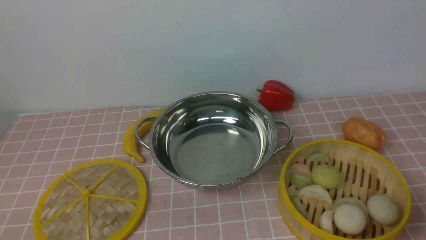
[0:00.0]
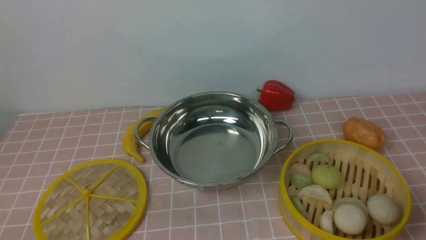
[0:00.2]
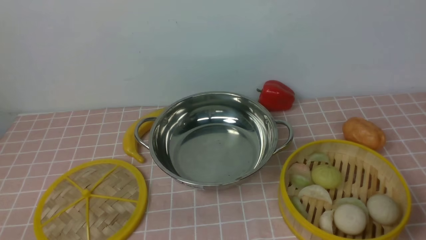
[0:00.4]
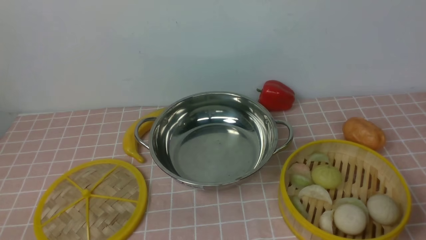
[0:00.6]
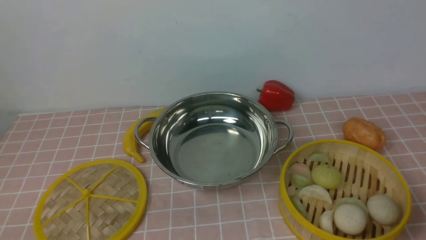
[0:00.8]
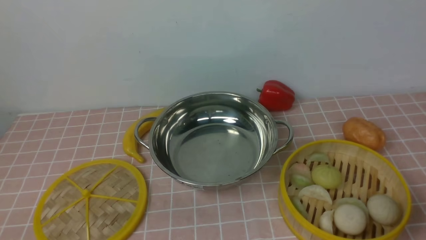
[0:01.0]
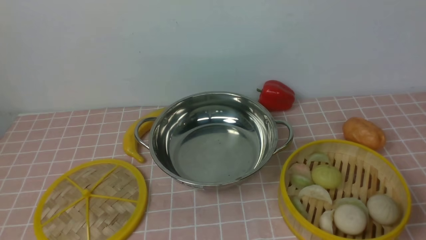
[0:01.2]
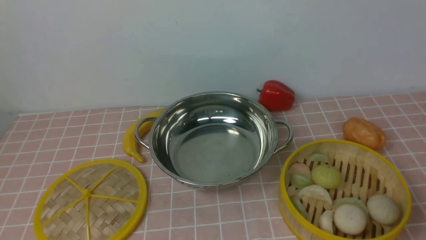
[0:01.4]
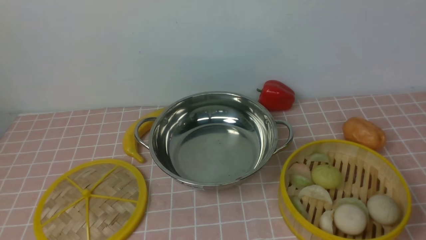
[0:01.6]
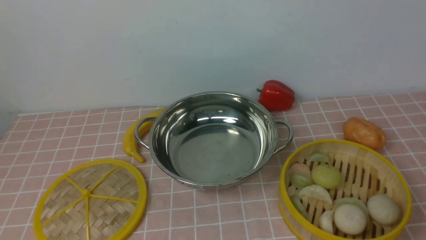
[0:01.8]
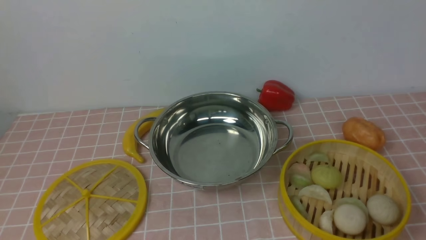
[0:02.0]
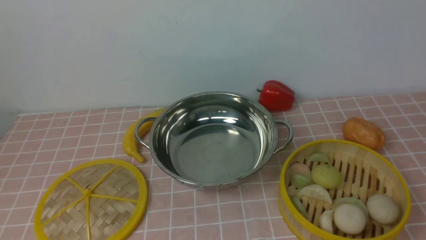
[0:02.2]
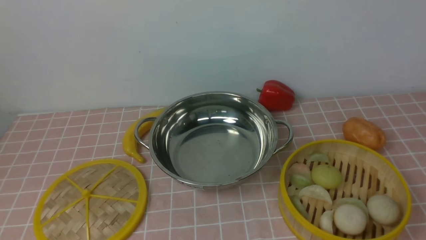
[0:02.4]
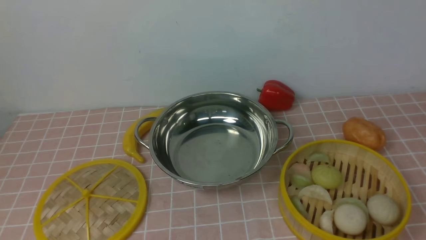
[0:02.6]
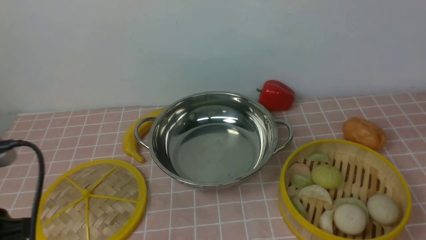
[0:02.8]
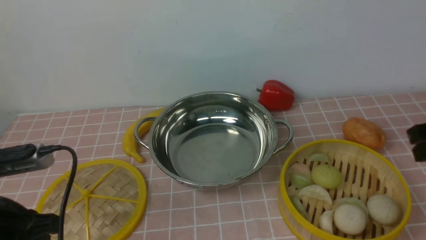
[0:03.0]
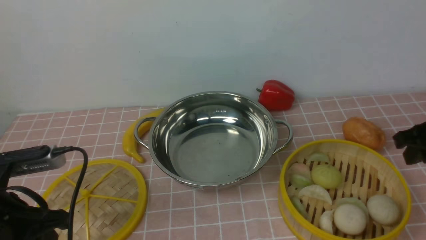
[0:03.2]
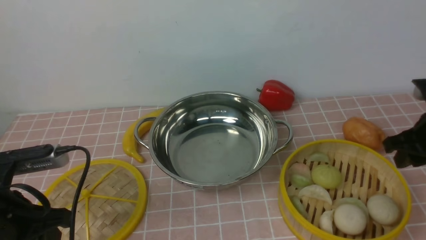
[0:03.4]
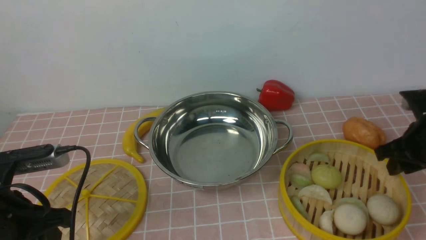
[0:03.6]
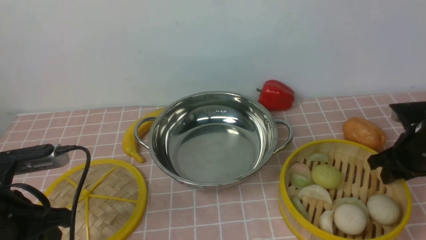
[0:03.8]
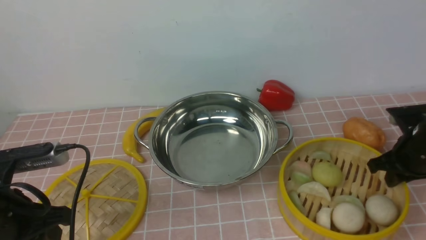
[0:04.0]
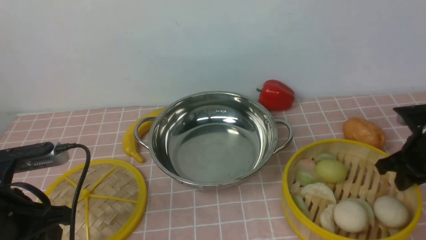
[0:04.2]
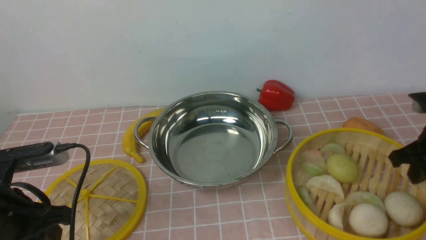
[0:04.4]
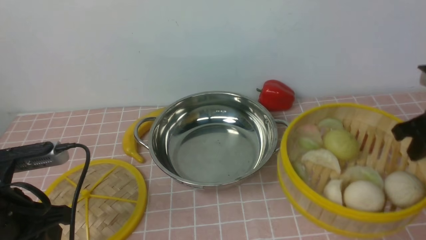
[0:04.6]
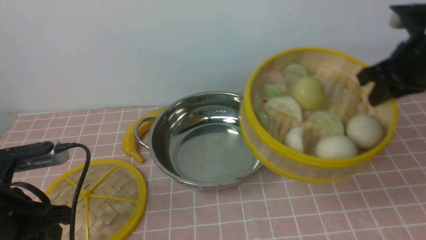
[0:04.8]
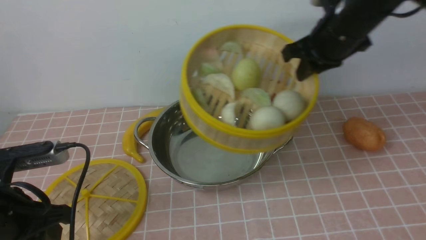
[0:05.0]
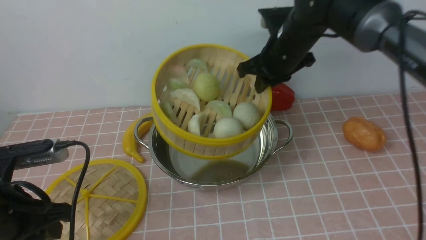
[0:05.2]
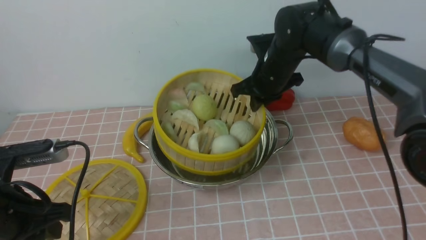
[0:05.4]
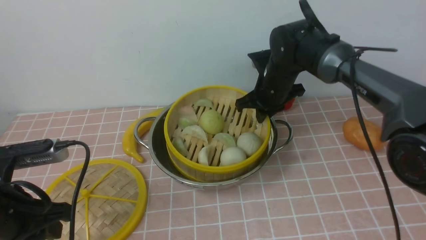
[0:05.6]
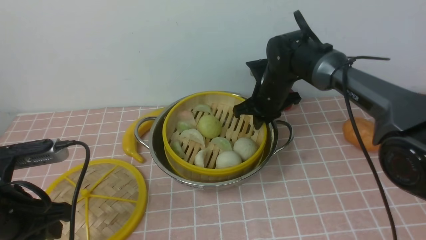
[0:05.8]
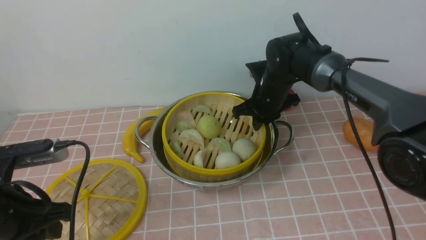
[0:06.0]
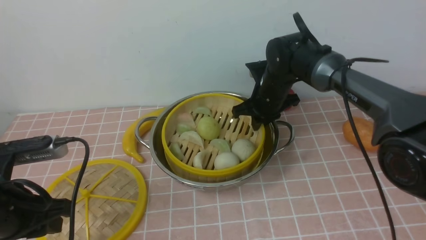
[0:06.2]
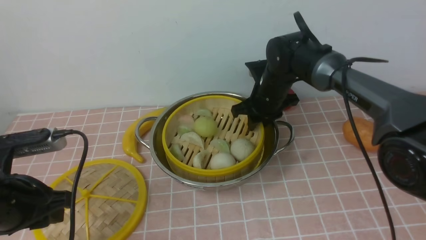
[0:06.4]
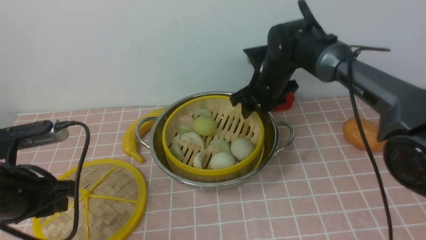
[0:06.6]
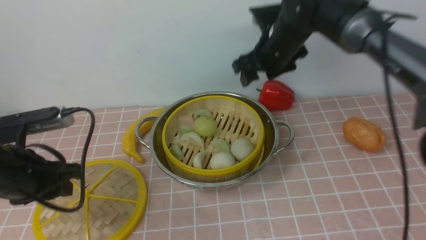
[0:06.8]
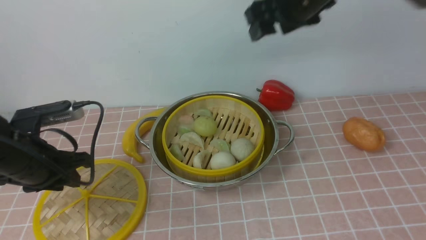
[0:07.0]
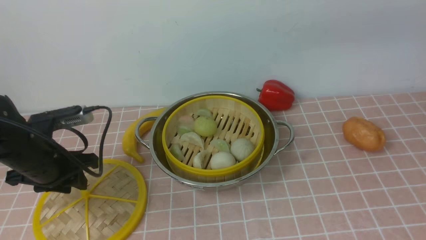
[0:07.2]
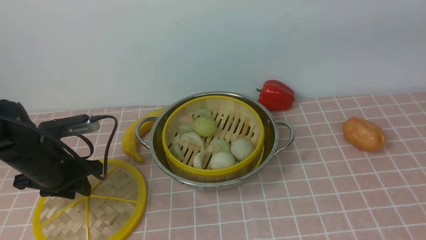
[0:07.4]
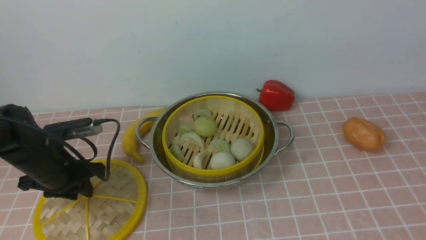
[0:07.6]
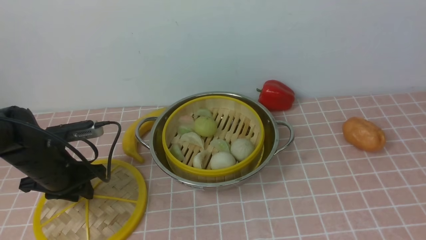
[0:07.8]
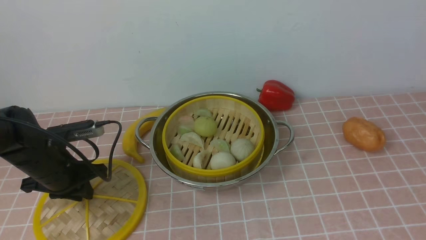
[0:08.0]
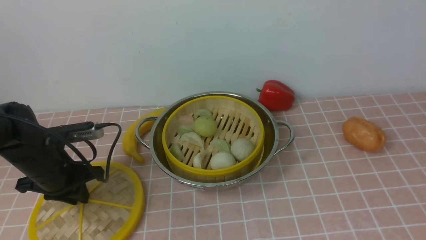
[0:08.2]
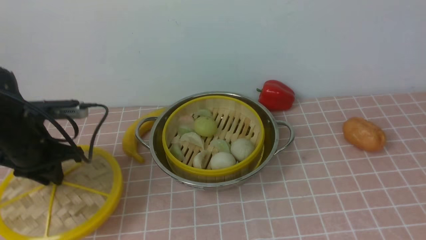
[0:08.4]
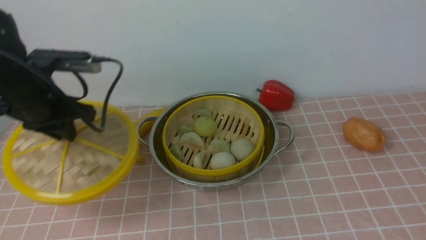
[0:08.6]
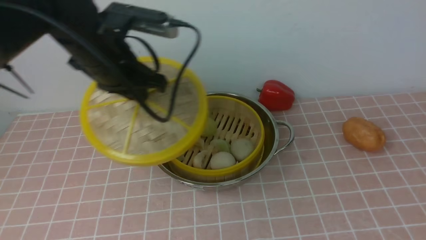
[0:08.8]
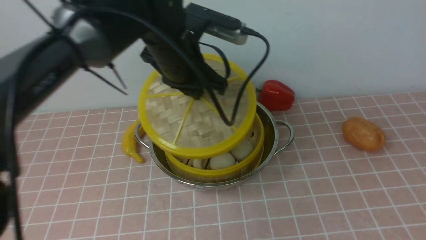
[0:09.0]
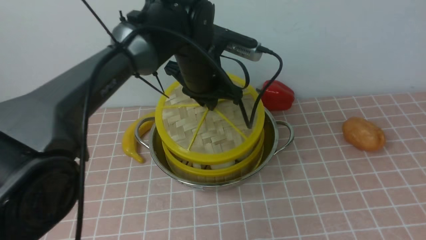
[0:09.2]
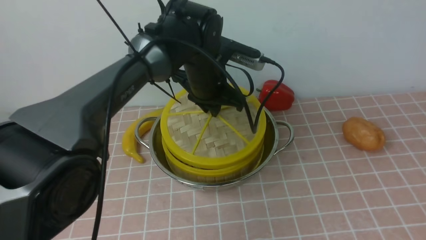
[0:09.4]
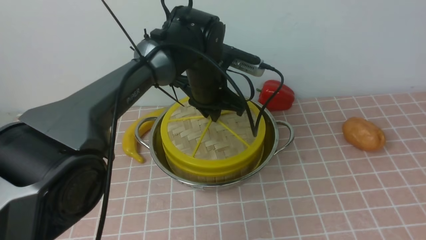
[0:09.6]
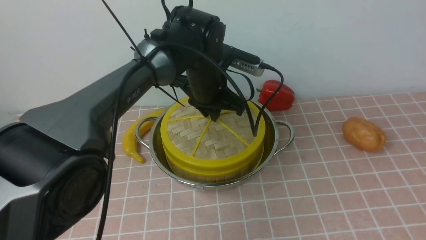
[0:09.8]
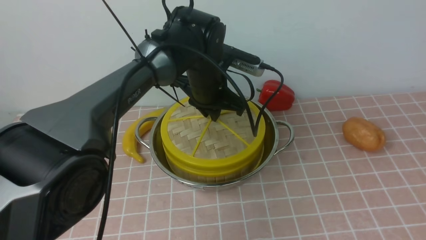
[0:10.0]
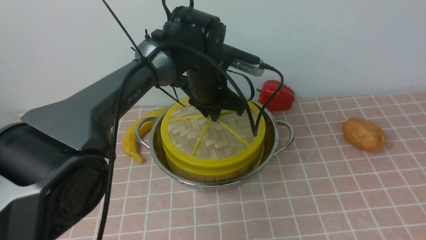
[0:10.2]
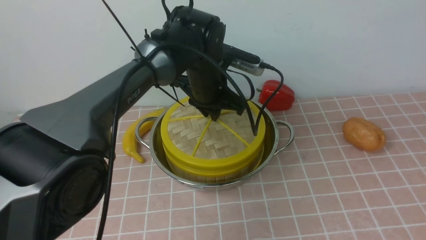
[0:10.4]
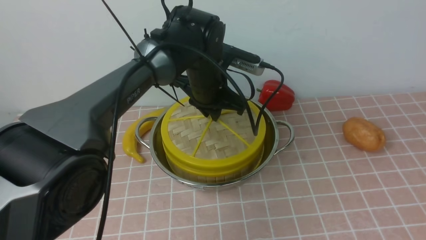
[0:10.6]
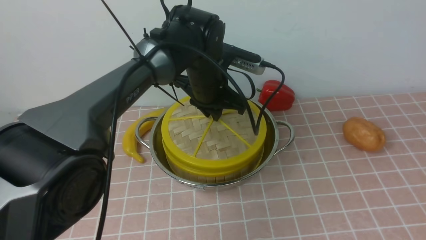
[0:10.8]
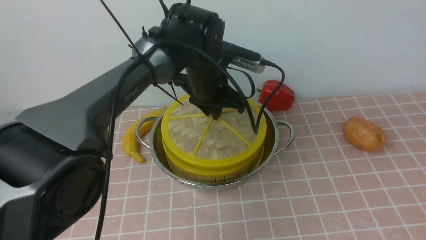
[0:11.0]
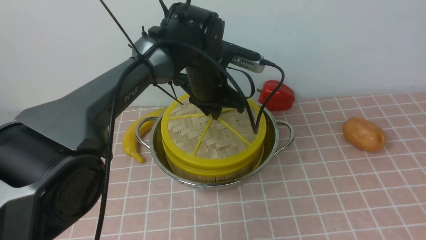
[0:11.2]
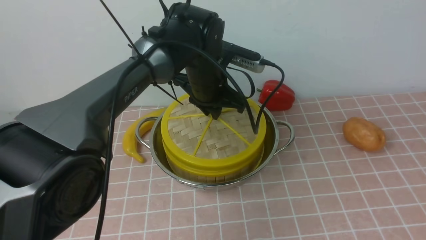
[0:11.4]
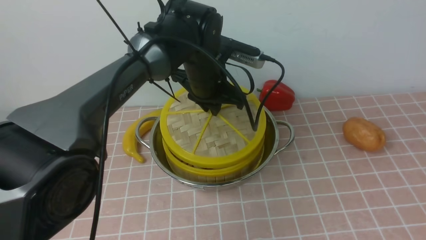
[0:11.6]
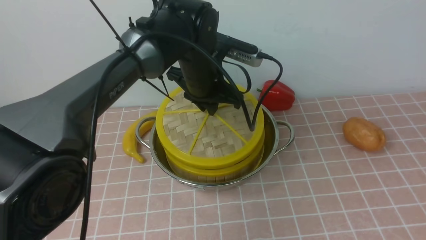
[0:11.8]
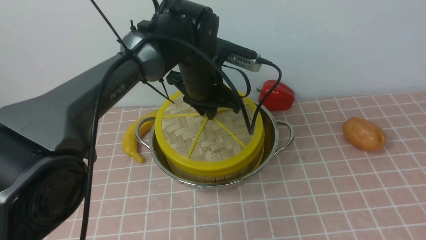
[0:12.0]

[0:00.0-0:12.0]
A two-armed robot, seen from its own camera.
Task of the whole recording: place the steamer in the pot on the pink tablecloth, and put the lid on the steamer.
Step, 0:00.0 to 0:04.4: use the right arm to lift the steamer closest to it.
Step, 0:04.6 to 0:06.4: use the right arm to put the steamer into the iron steamer pot in the middle.
Step, 0:06.8 to 0:08.2: use the left arm to lift the lid of the steamer.
0:01.6 to 0:03.0: The left gripper heads forward, covering approximately 15 cm.
0:03.0 to 0:04.4: The right gripper shifts approximately 5 cm downward.
0:04.4 to 0:06.0: The right gripper moves to the left and forward, about 25 cm.
0:06.0 to 0:07.6: The right gripper travels upward, backward and to the right by approximately 50 cm, and opens up, while the left gripper shifts some 15 cm forward and downward.
0:07.6 to 0:09.0: The left gripper shifts about 25 cm to the right and upward; the right gripper heads backward, to the right and downward, covering roughly 20 cm.
0:09.0 to 0:10.4: The left gripper goes approximately 5 cm downward.
0:10.4 to 0:12.0: The grippers move only a little.

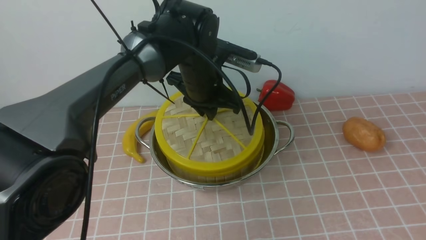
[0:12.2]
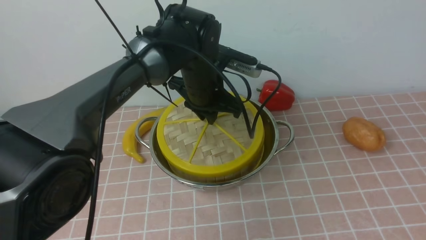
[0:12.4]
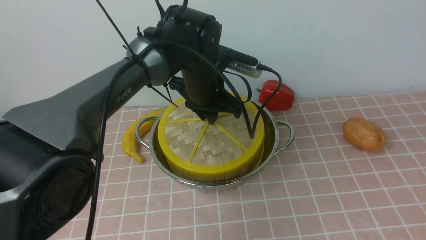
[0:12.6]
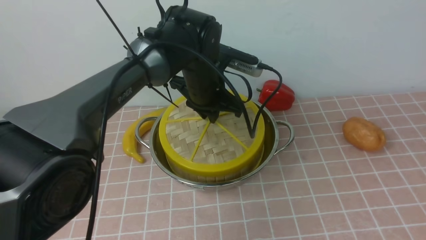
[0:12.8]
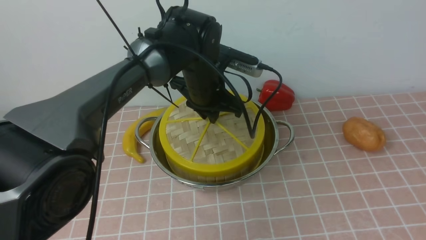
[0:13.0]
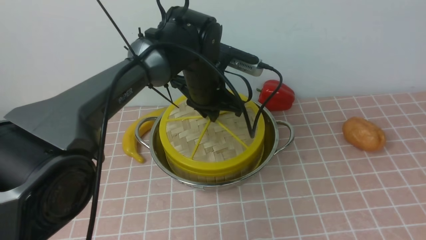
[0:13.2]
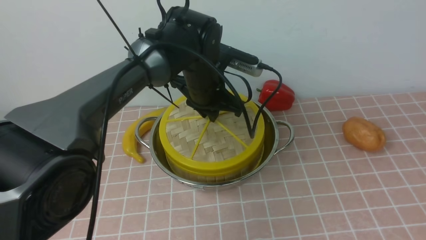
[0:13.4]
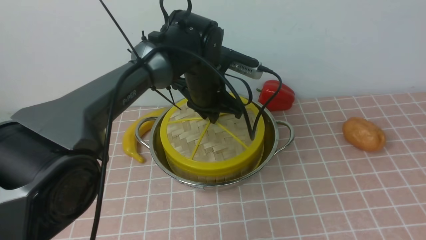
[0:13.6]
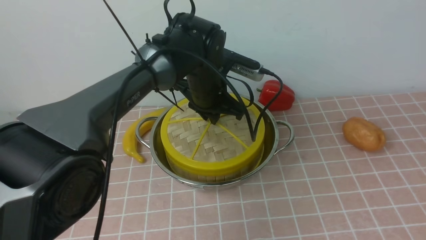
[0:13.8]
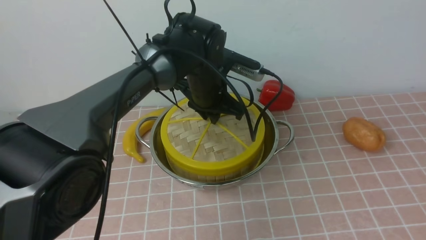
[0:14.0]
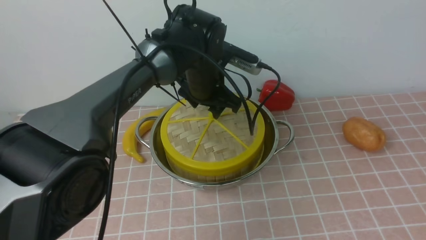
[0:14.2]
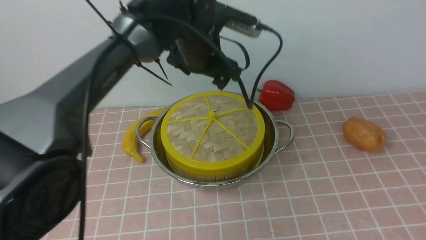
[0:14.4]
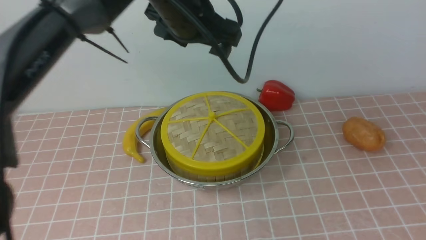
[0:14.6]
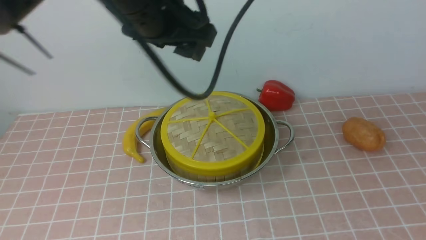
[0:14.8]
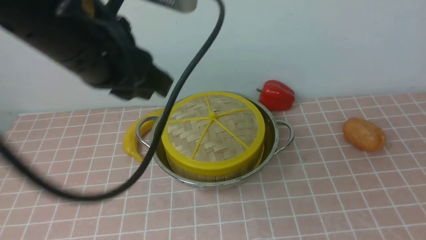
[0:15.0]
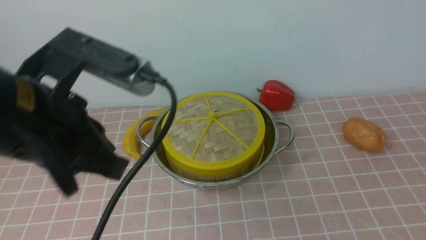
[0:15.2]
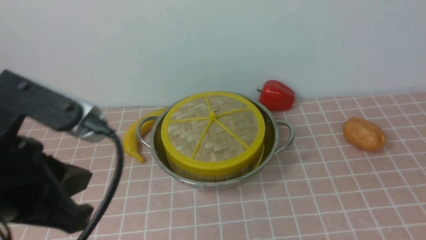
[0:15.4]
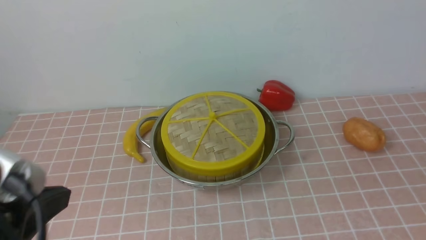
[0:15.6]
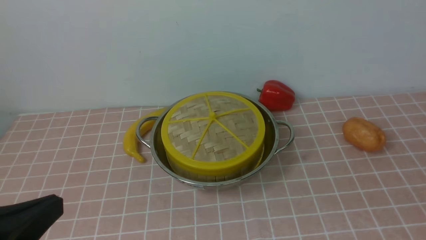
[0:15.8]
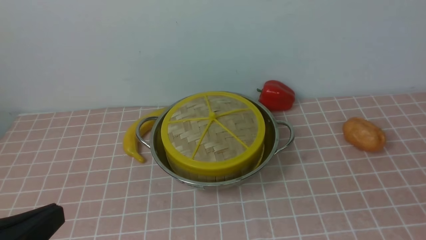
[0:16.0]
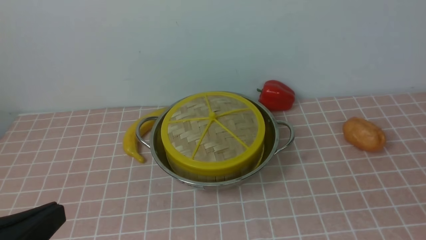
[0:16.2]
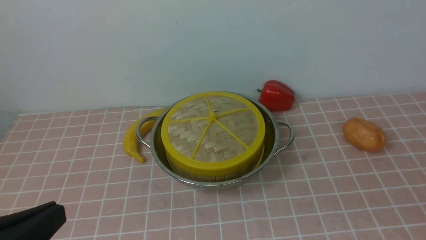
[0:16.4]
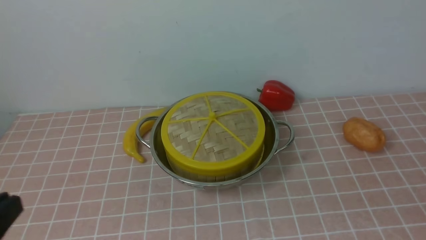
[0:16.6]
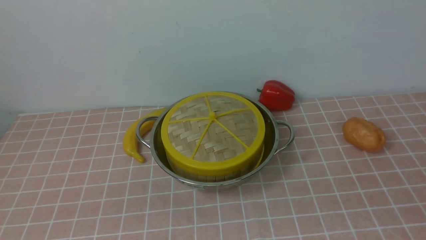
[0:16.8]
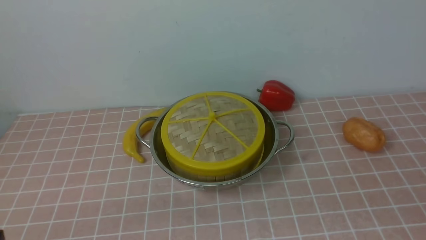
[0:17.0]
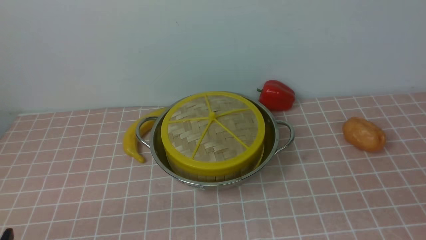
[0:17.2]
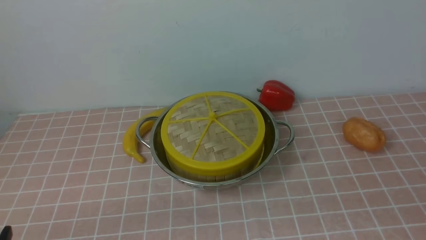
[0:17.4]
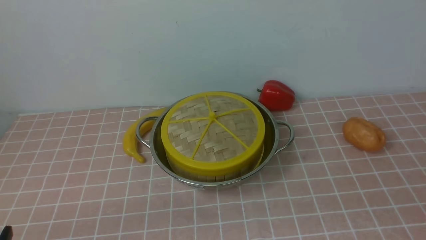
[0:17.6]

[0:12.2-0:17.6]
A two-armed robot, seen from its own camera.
Task of the whole recording: place the steamer in the pot on the pink tablecloth, and put the lid on the steamer.
Step, 0:12.2 to 0:14.2: use the left arm to place the steamer lid on the steamer.
0:12.2 to 0:13.6: The grippers move only a little.
0:13.6 to 0:15.0: The right gripper ends up about 5 cm from where it was, and closes; the left gripper travels backward, upward and to the left by about 25 cm, and opens, then closes again.
0:15.0 to 0:16.2: The right gripper is displaced downward by roughly 10 cm, and closes, while the left gripper shifts about 25 cm backward, downward and to the left.
0:16.2 to 0:17.6: The left gripper shifts some 10 cm downward.
